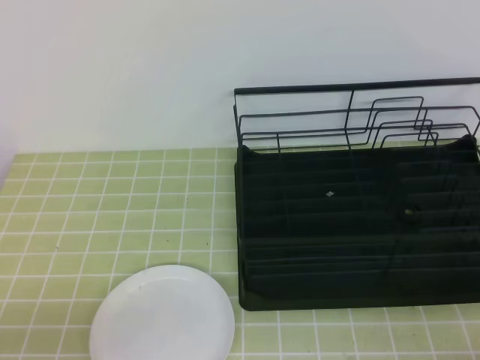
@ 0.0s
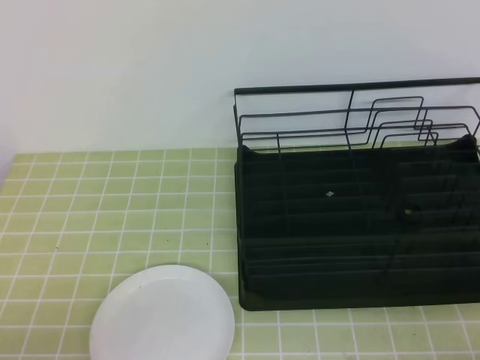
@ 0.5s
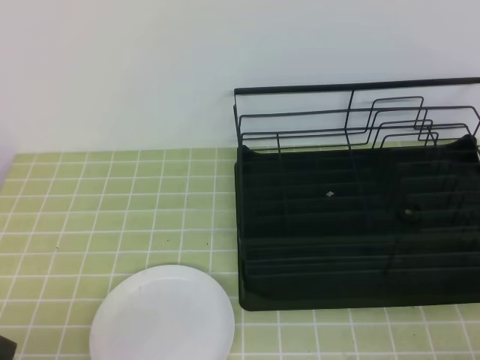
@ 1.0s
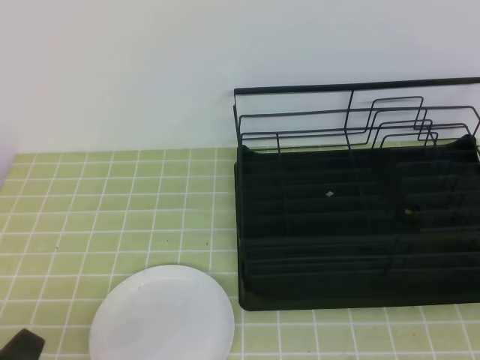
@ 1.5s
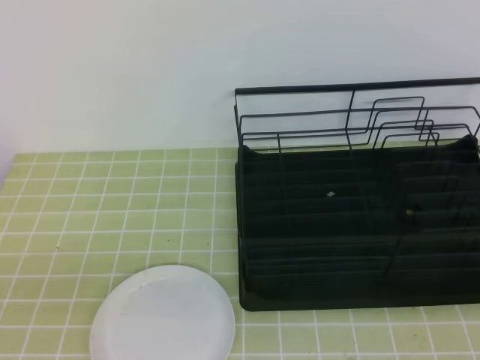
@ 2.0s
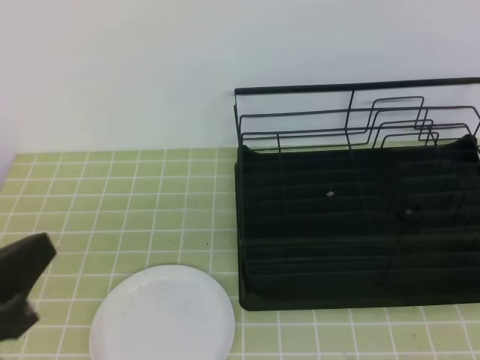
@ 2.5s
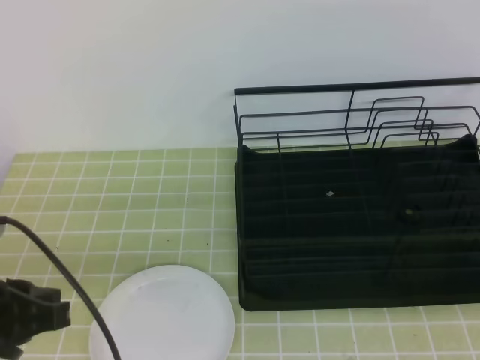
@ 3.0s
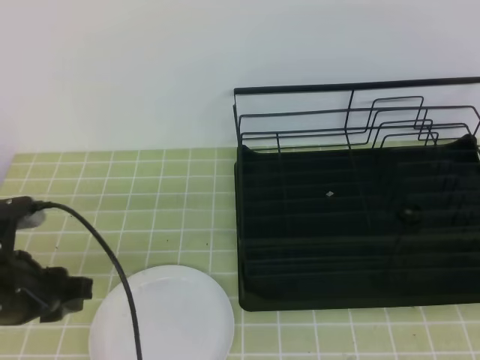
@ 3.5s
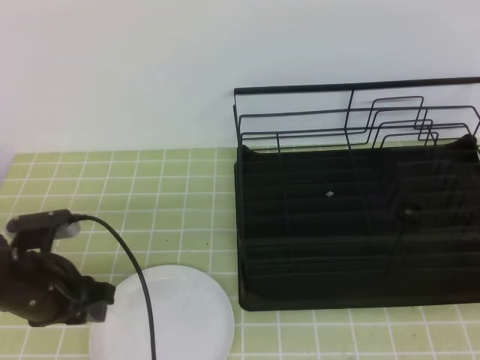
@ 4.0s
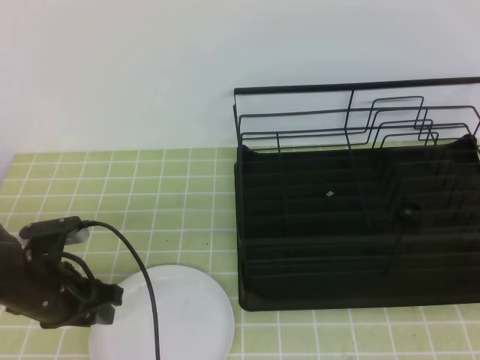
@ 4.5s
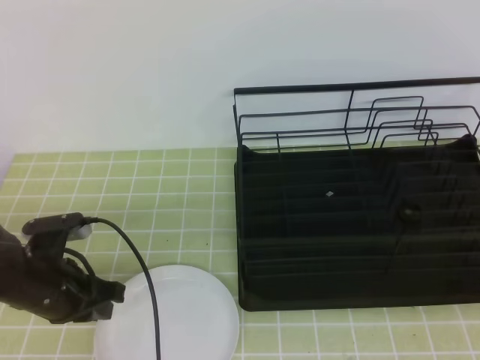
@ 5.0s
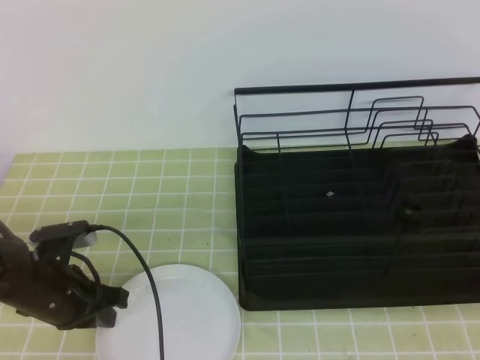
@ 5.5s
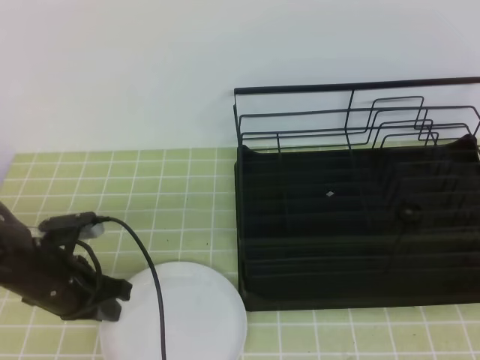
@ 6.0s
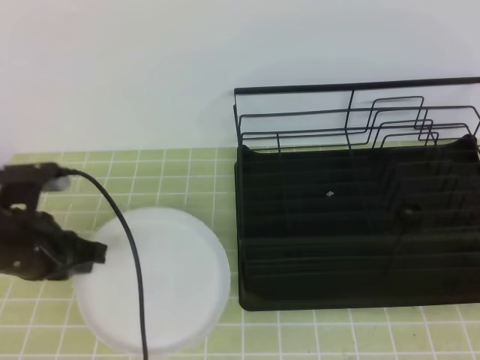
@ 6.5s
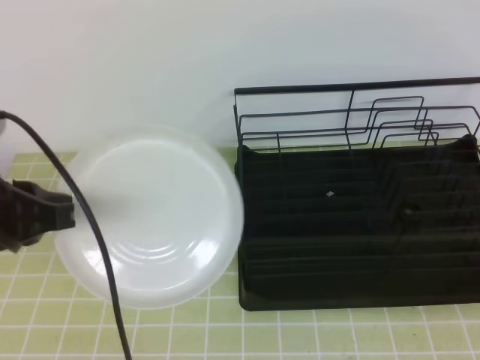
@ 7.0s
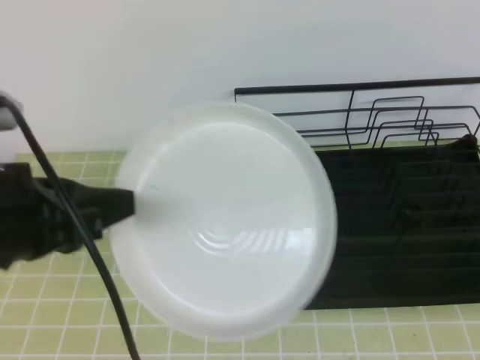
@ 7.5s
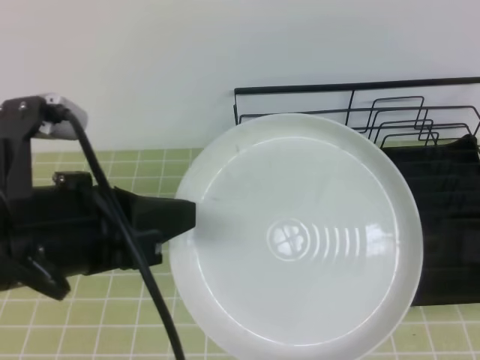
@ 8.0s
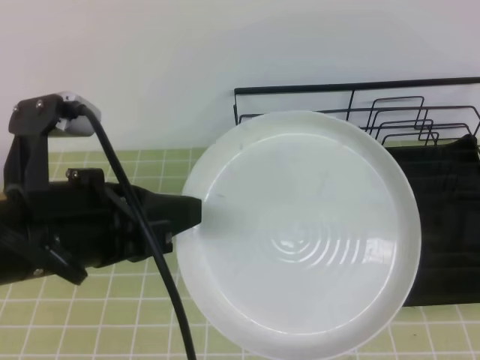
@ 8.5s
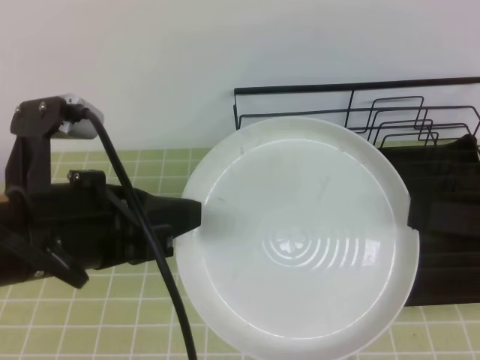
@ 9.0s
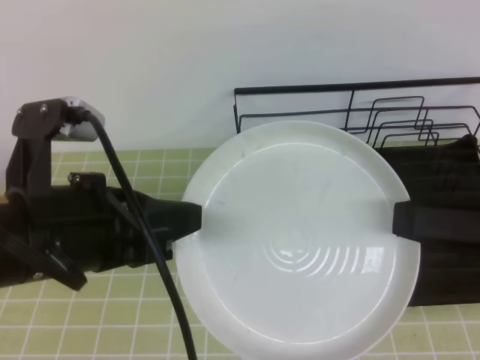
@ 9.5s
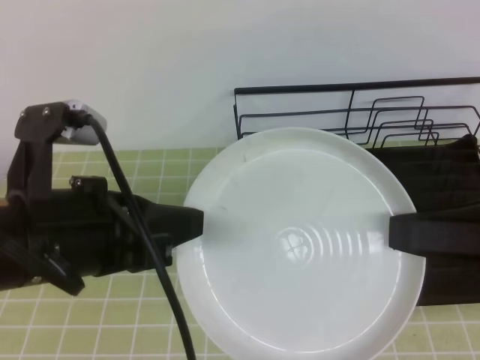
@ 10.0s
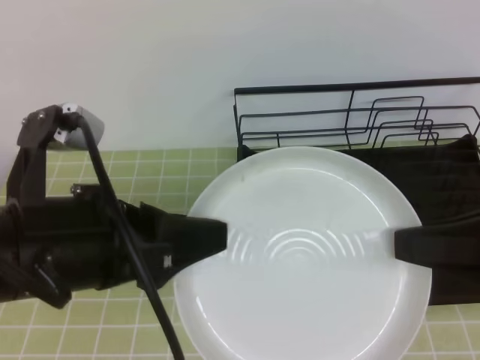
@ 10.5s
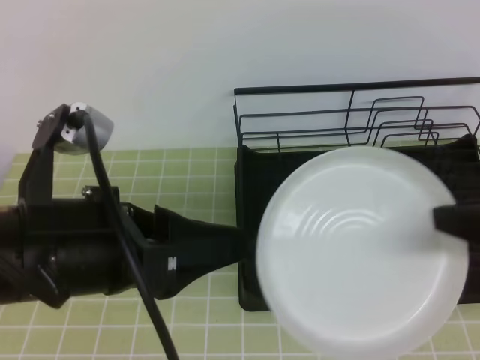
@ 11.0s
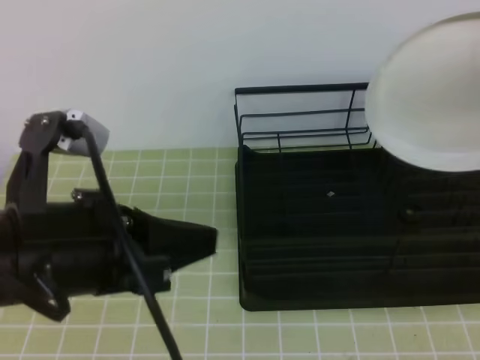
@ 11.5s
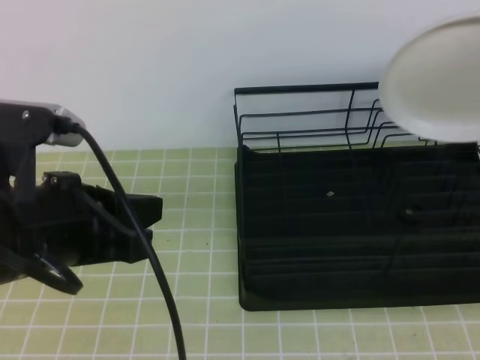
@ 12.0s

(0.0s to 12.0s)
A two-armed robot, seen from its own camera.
2.0s - 4.0s: The right gripper shifts some 10 cm upward and forward; the left gripper shifts roughly 25 cm forward and downward, and opens.
4.0s - 6.0s: The left gripper closes up.
6.0s - 8.0s: The right gripper ends up about 5 cm from where it was, and opens its fingers, while the left gripper moves upward and backward, roughly 20 cm.
8.0s - 10.0s: The right gripper closes its fingers.
10.0s - 12.0s: The right gripper heads forward and to the right, covering approximately 15 cm. The left gripper opens, then closes once more.

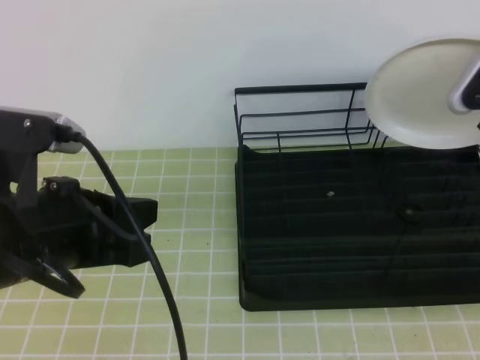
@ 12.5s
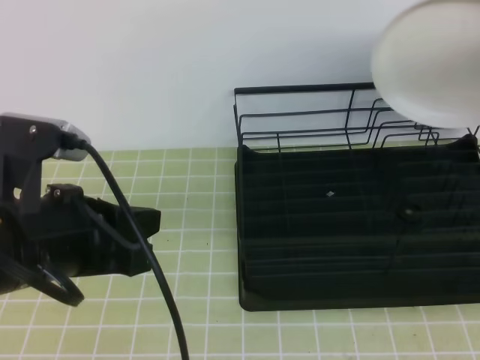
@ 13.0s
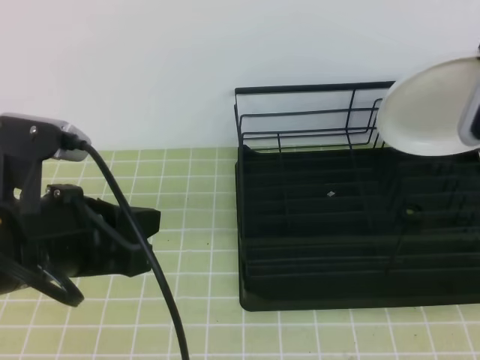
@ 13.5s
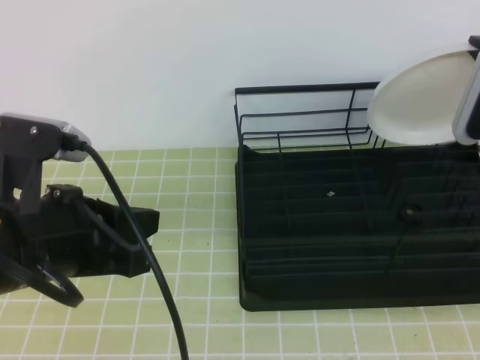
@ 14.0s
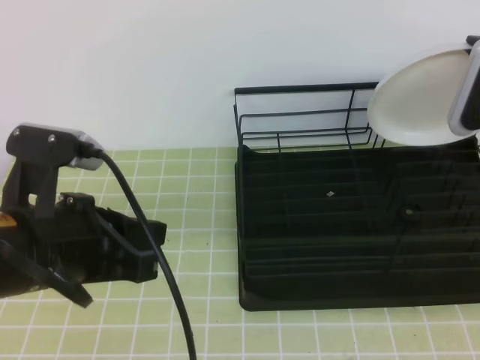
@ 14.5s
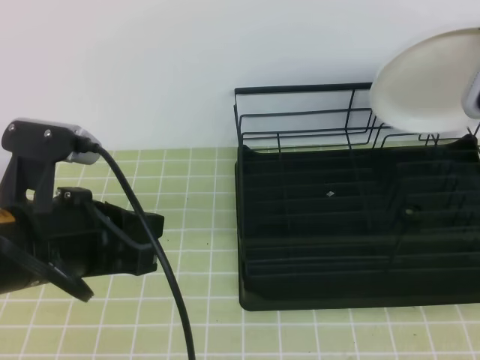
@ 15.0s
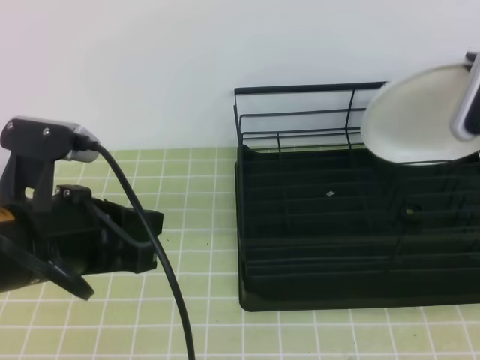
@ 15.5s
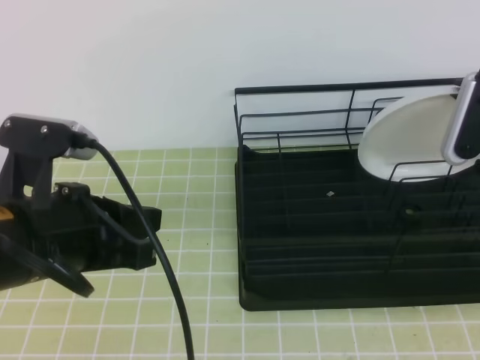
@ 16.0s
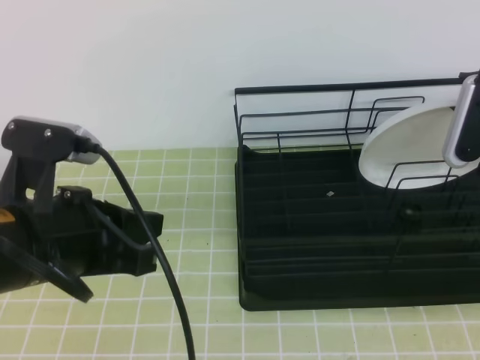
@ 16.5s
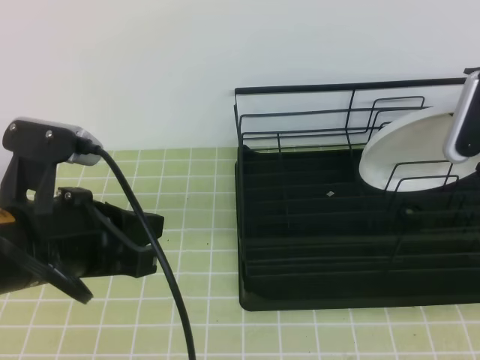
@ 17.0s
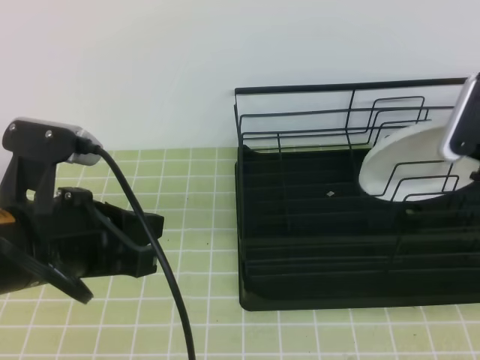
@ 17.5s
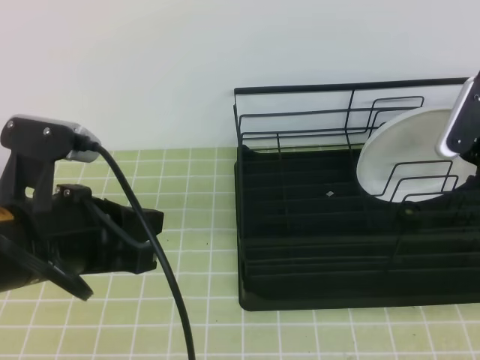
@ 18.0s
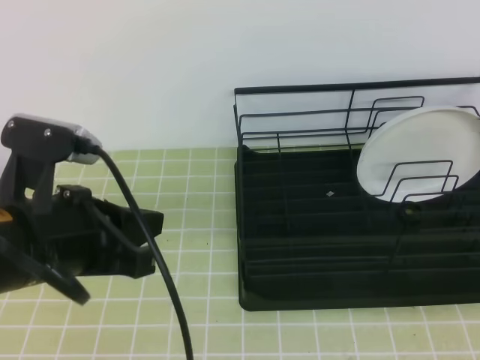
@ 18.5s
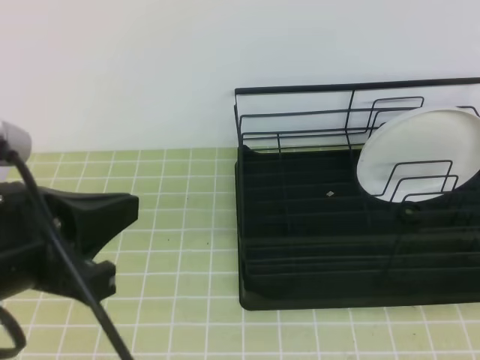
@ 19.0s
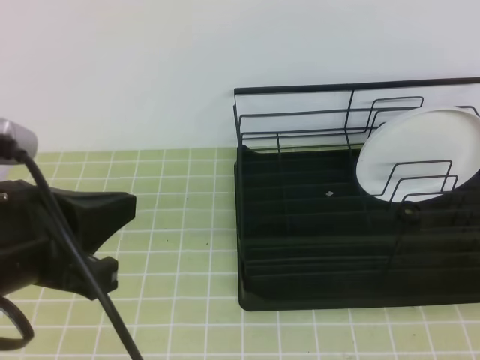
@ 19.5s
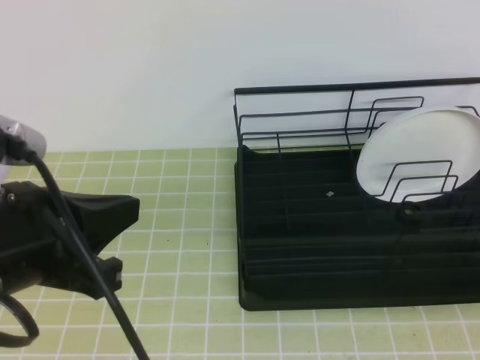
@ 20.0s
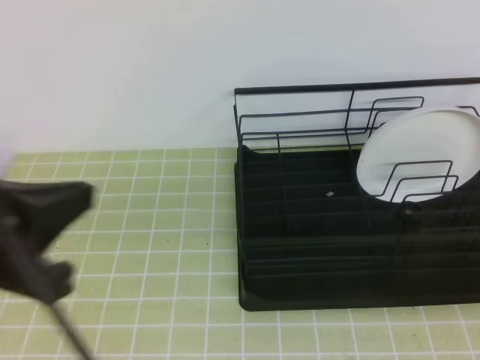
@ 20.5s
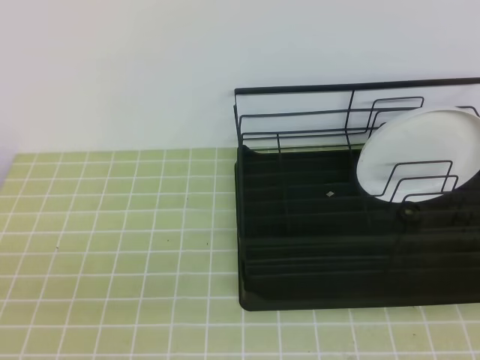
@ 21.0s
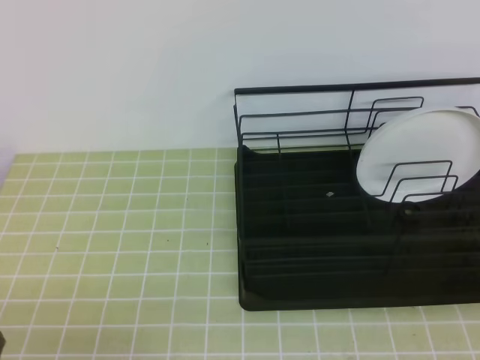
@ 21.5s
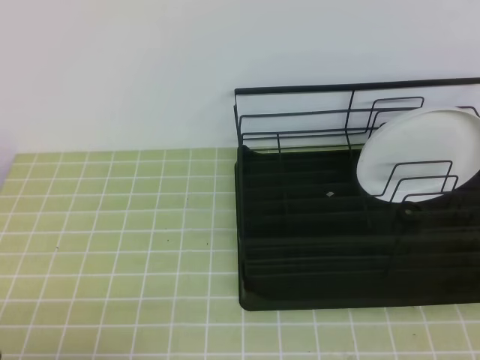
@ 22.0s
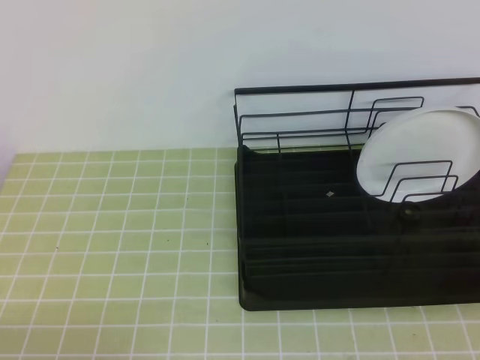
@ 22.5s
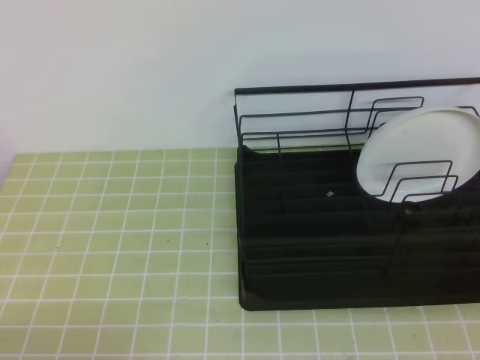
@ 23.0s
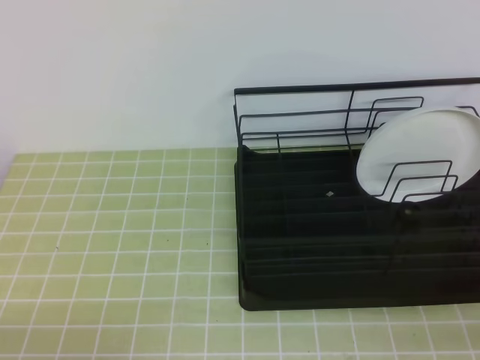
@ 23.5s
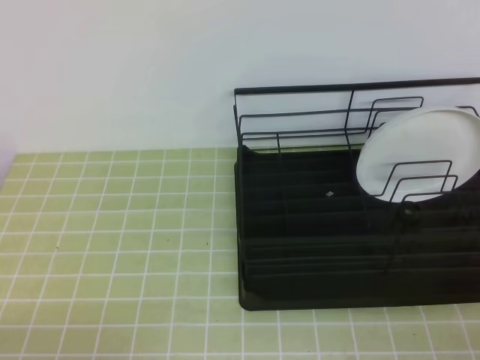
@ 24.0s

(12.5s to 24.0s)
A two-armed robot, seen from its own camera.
14.5s - 16.5s: The right gripper opens up.
16.5s - 18.5s: The right gripper moves upward, about 5 cm.
18.5s - 20.0s: The right gripper goes roughly 25 cm backward, and closes.
20.0s - 22.0s: The left gripper goes roughly 20 cm downward, backward and to the left.

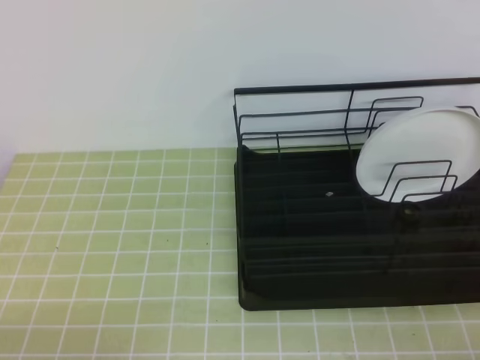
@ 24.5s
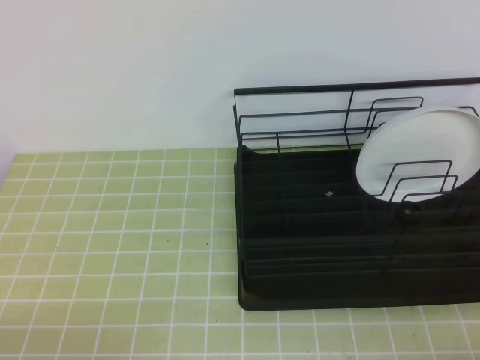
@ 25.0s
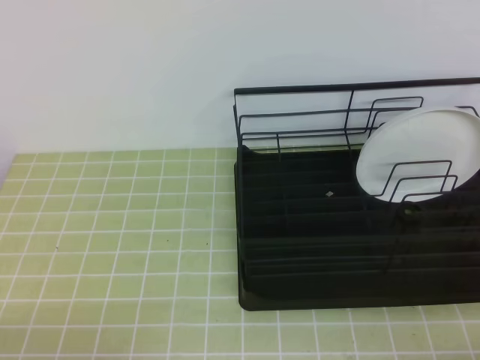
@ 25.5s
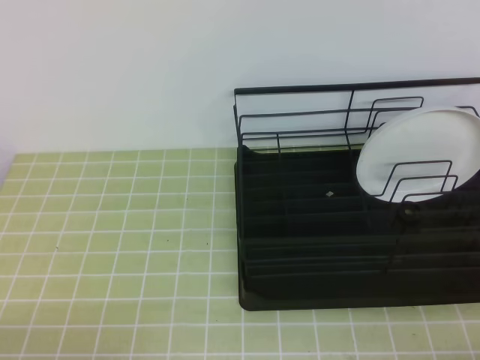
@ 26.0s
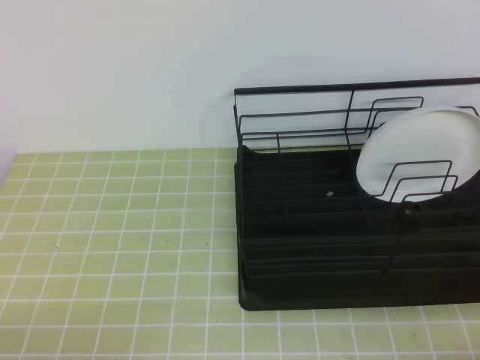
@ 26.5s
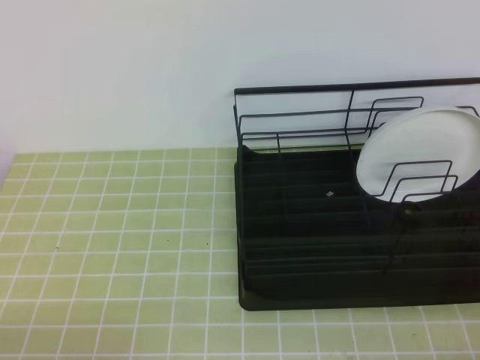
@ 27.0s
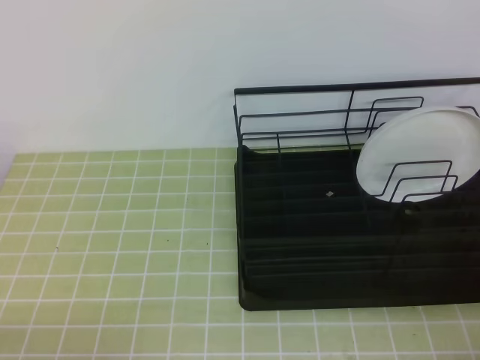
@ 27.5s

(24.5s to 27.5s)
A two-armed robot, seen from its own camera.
24.5s - 27.5s: Neither gripper changes place.
